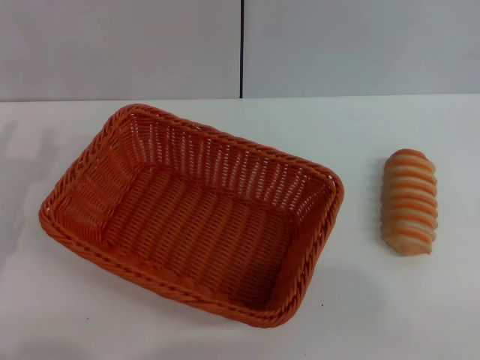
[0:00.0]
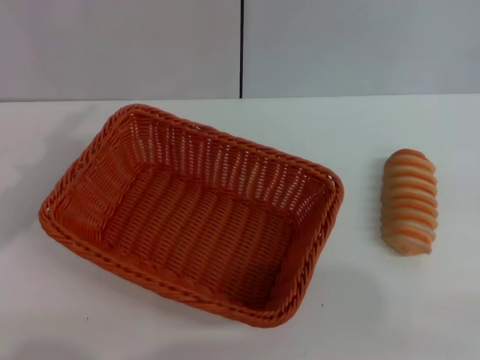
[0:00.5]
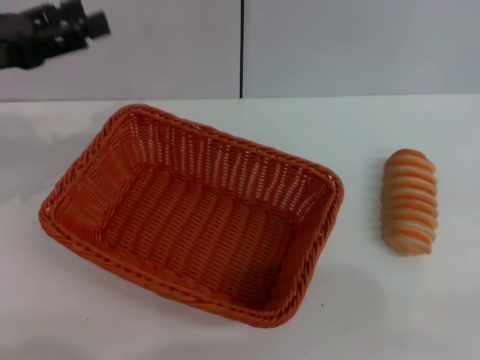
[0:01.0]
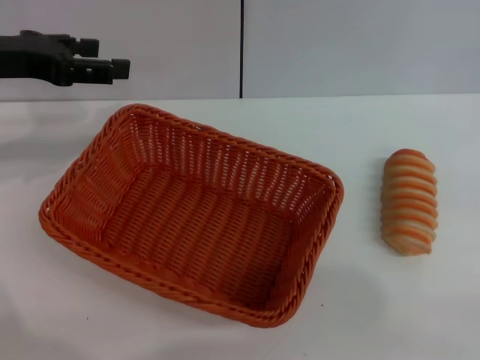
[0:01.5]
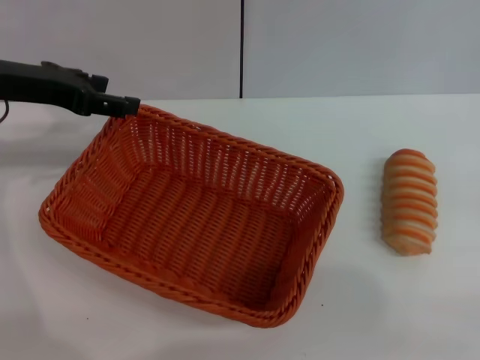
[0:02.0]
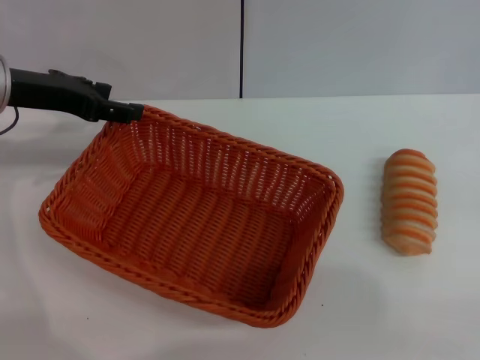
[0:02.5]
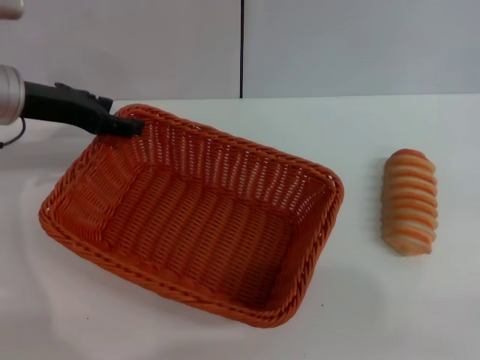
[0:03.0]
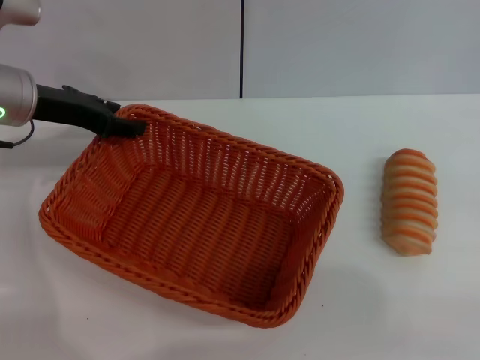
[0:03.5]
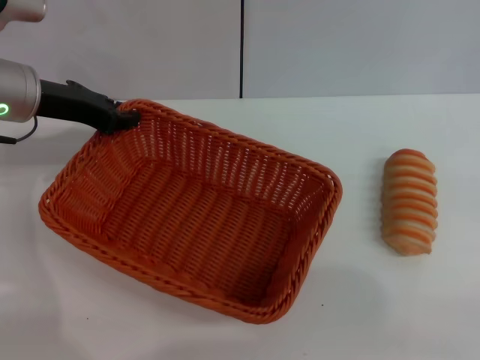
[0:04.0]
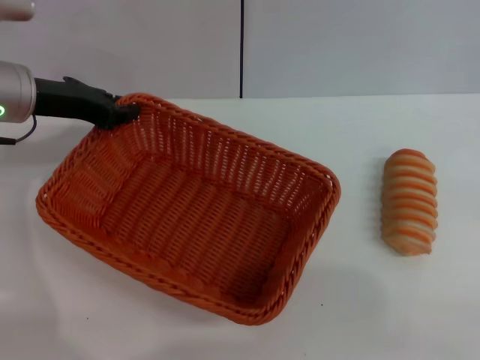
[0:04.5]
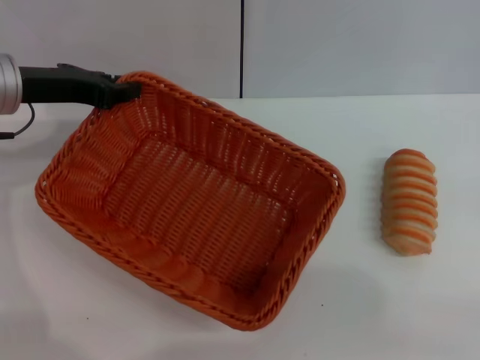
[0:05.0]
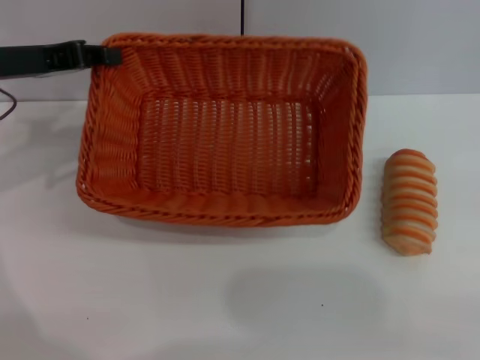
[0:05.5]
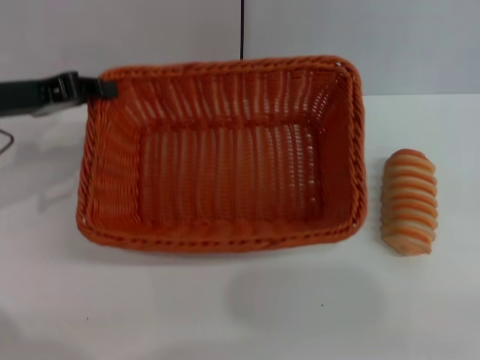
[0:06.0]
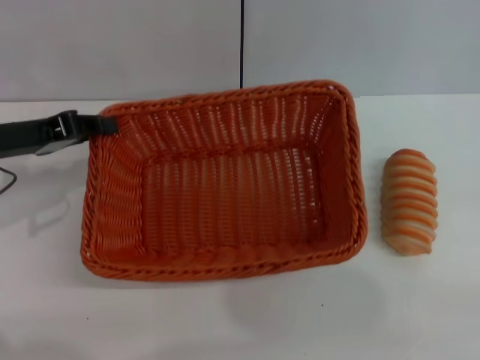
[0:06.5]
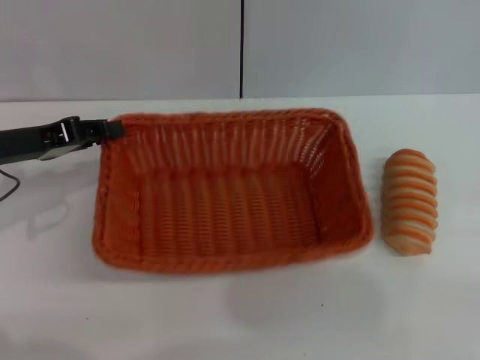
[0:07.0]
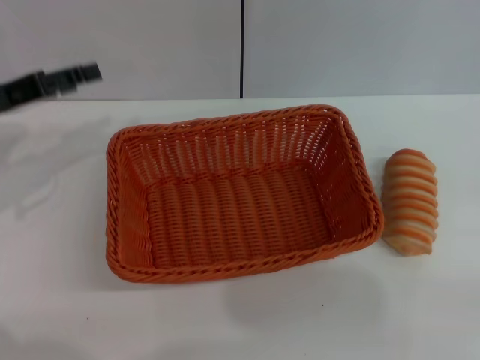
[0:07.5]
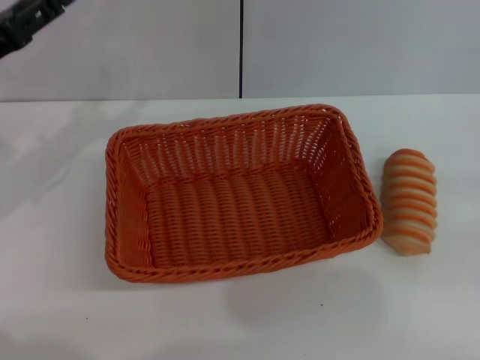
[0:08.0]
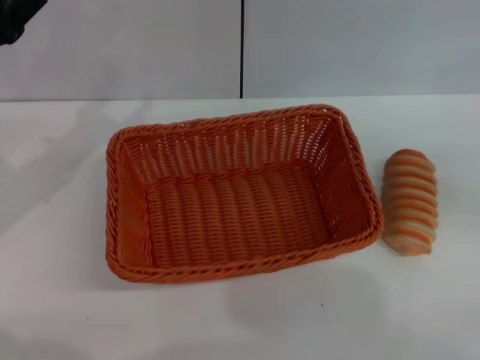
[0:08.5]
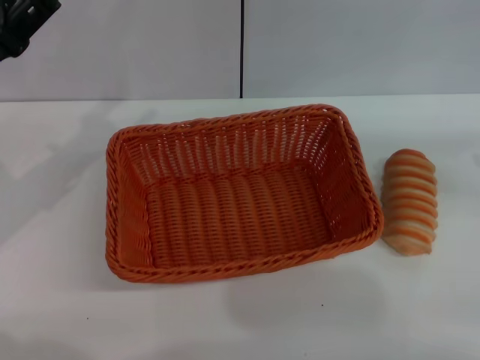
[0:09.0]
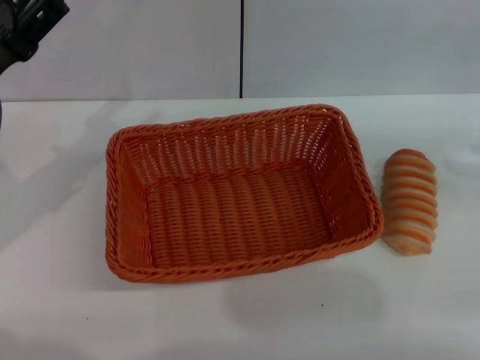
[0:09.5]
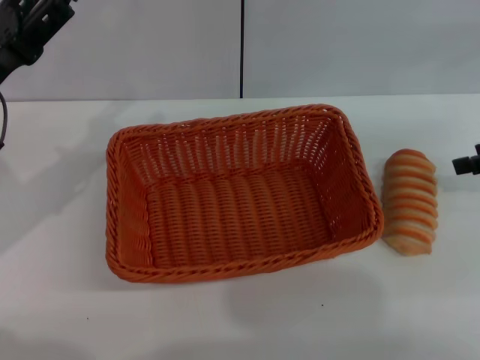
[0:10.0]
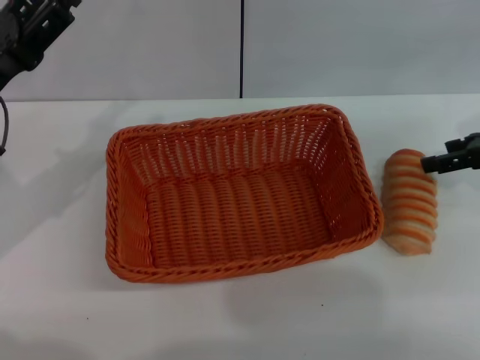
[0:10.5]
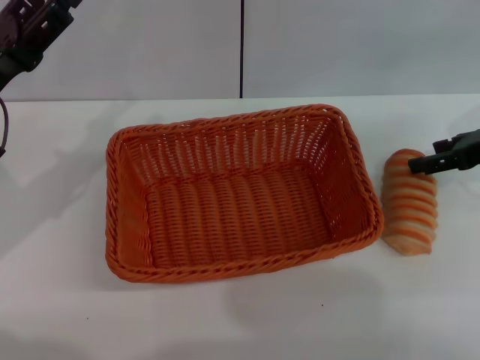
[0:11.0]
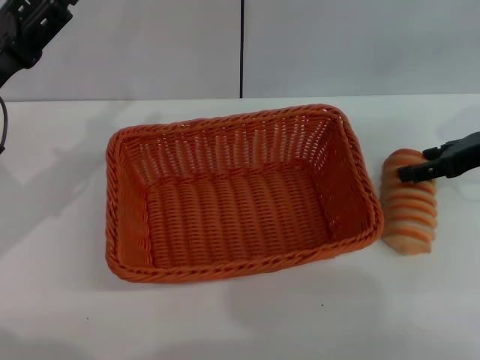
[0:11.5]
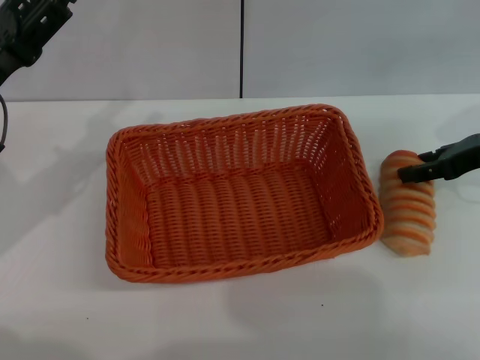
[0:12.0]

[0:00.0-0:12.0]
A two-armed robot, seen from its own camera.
Step, 0:00.0 to 0:05.0: Pick up the light basket with the left gripper.
Step, 0:05.5 to 0:07.5: Place the light basket in the center of view with the left gripper.
0:00.0 to 0:02.0: The left gripper goes roughly 15 cm forward and upward.
0:02.0 to 0:04.0: The left gripper closes.
0:04.0 to 0:06.0: The left gripper ends up roughly 5 cm from where it was, and closes up.
0:06.0 to 0:08.0: The left gripper opens, while the right gripper is displaced upward and to the right by some 15 cm.
0:08.0 to 0:10.0: The right gripper heads forward and to the left, covering some 20 cm.
0:10.0 to 0:12.0: The right gripper goes about 5 cm to the left.

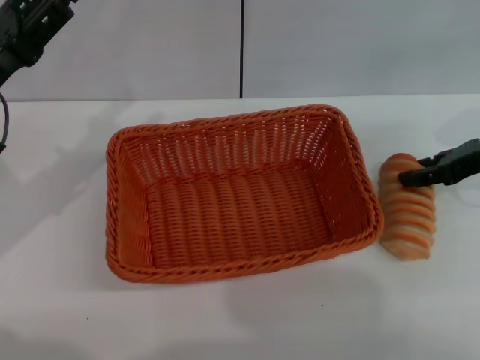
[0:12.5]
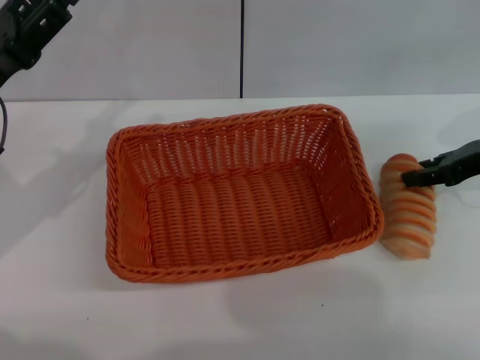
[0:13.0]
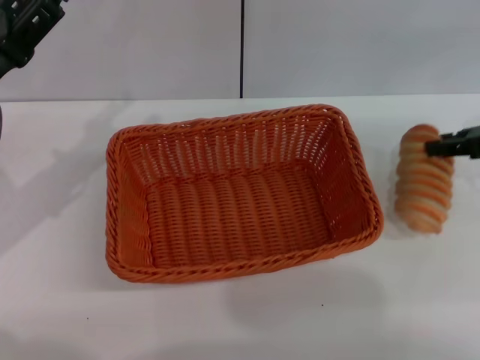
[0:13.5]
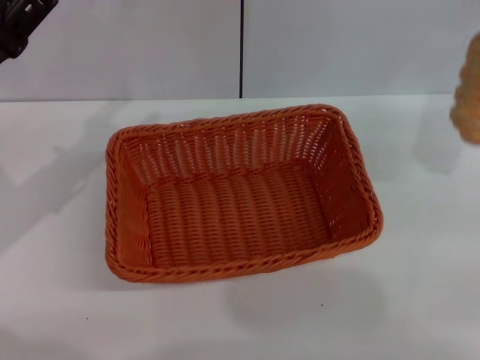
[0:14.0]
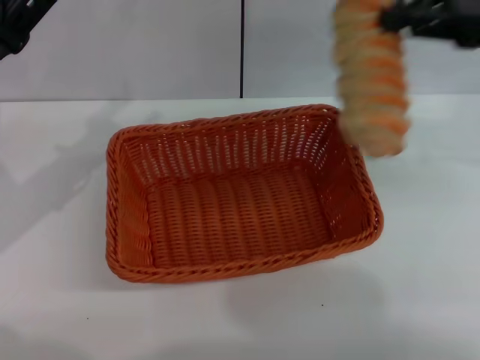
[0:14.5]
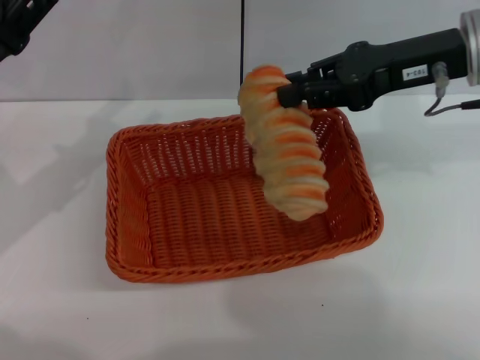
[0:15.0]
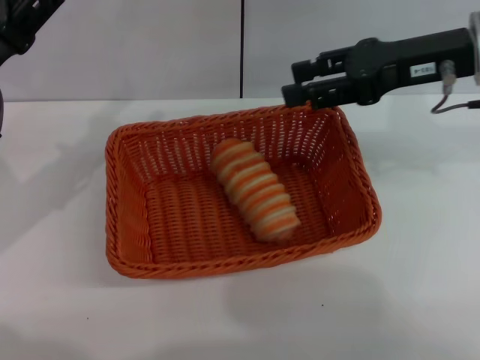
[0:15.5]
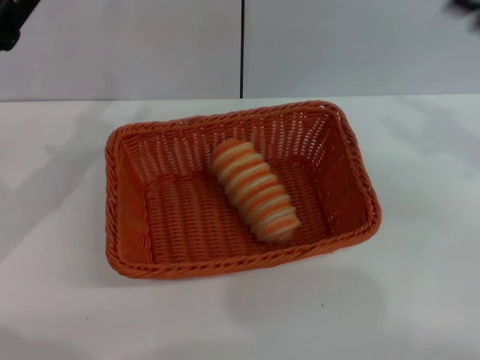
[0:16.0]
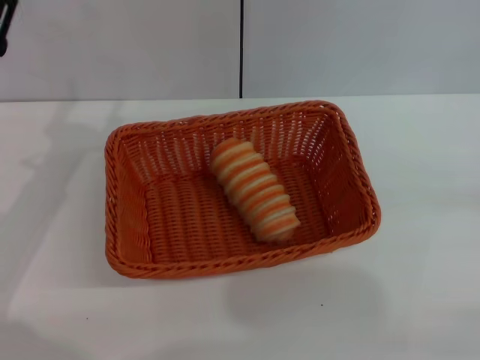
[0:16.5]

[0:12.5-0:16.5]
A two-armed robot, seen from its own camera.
Step, 0:14.0 to 0:15.0: Place the long bread into the light basket with the right gripper.
0:12.5 to 0:14.5: The right gripper goes approximately 15 cm upward, and closes.
0:14.5 to 0:16.5: The right gripper moves to the right, backward and downward, roughly 30 cm, and opens up.
